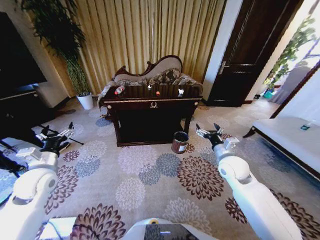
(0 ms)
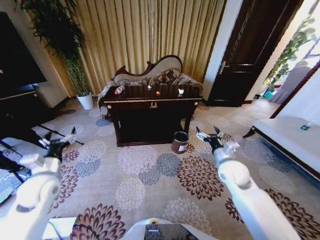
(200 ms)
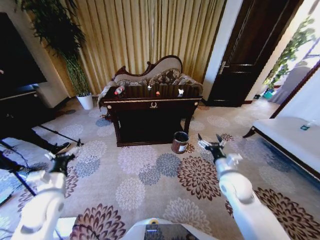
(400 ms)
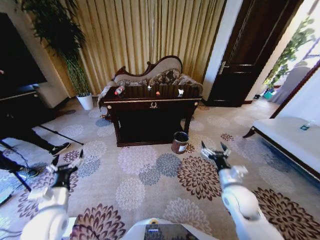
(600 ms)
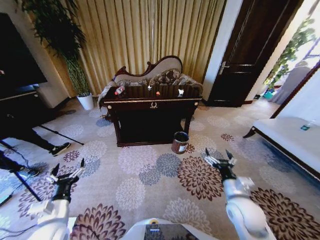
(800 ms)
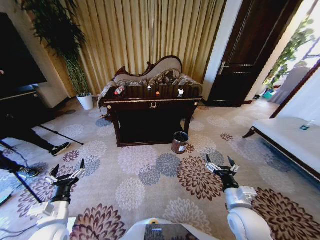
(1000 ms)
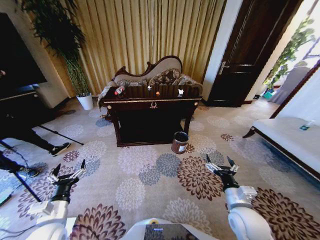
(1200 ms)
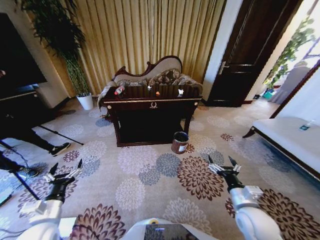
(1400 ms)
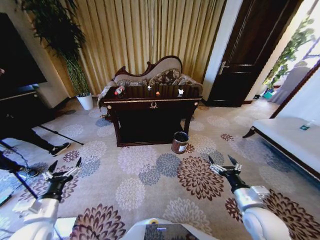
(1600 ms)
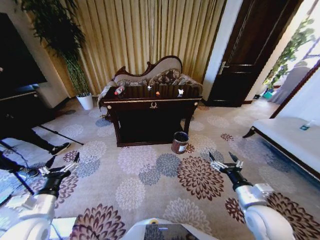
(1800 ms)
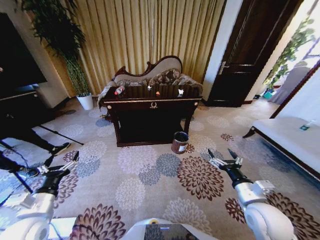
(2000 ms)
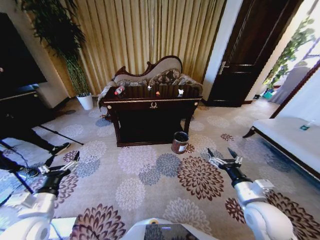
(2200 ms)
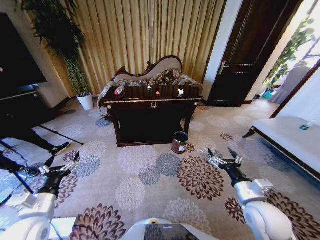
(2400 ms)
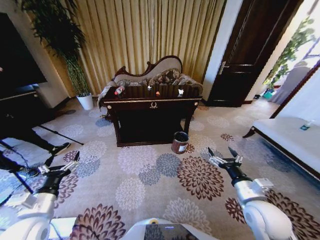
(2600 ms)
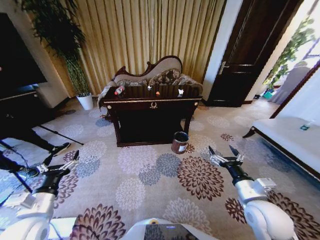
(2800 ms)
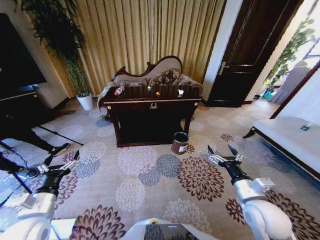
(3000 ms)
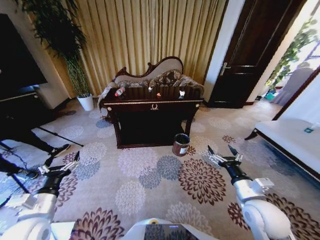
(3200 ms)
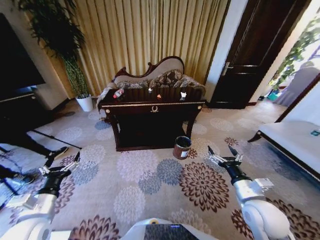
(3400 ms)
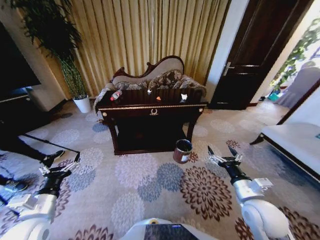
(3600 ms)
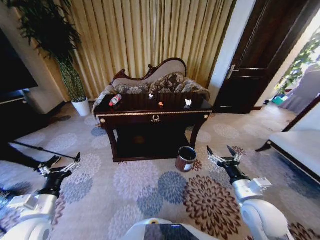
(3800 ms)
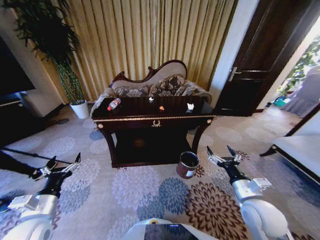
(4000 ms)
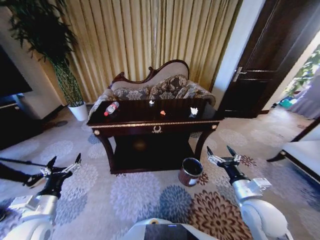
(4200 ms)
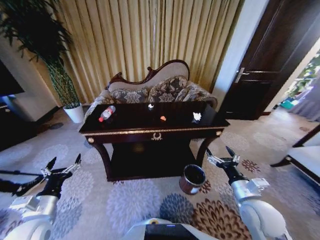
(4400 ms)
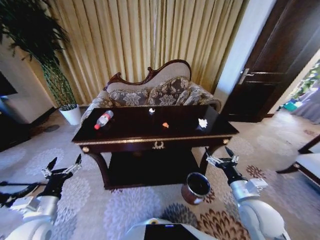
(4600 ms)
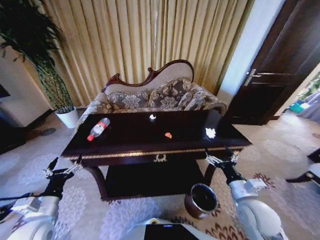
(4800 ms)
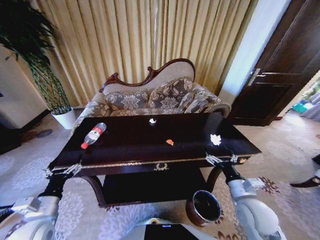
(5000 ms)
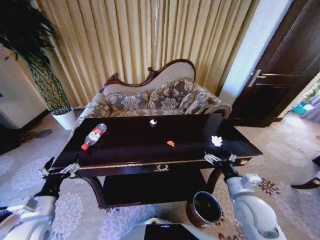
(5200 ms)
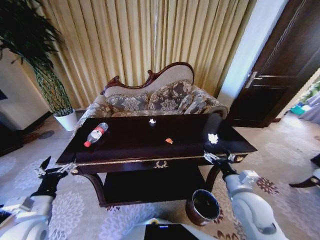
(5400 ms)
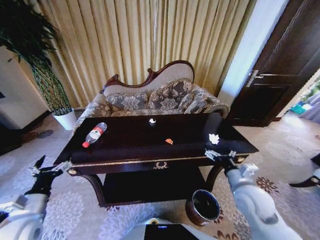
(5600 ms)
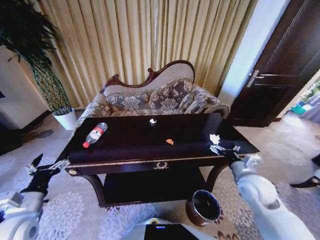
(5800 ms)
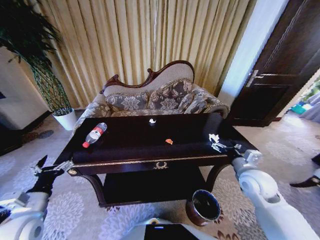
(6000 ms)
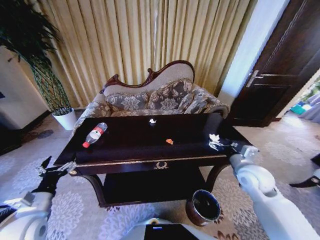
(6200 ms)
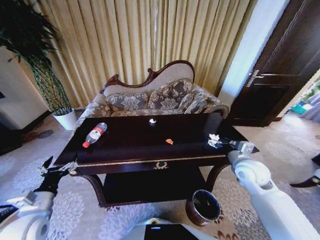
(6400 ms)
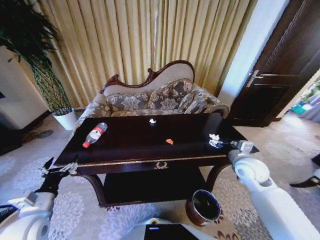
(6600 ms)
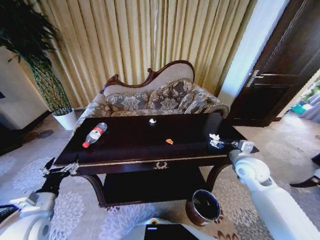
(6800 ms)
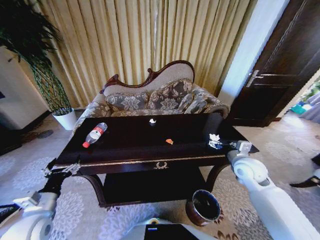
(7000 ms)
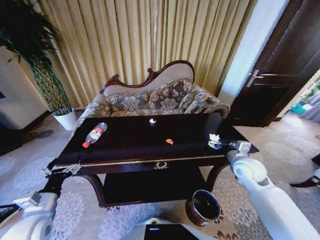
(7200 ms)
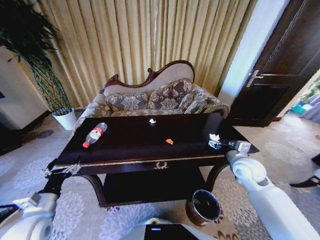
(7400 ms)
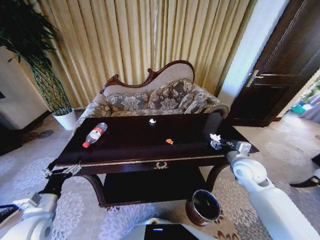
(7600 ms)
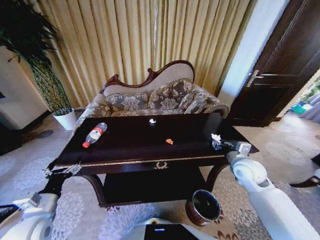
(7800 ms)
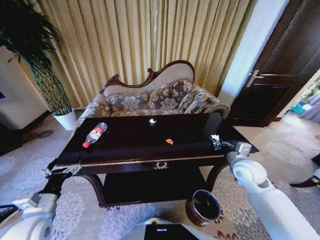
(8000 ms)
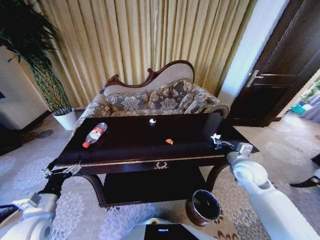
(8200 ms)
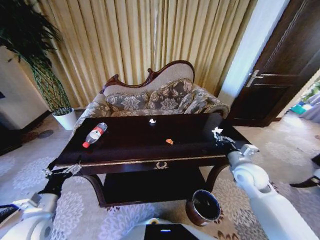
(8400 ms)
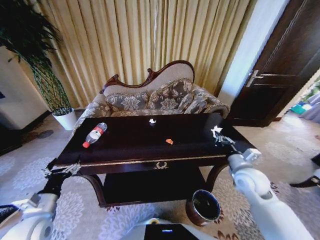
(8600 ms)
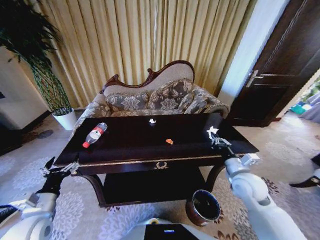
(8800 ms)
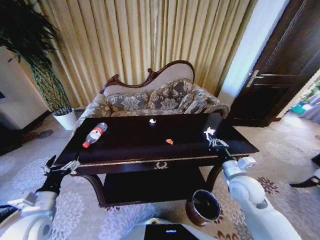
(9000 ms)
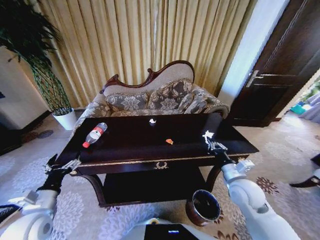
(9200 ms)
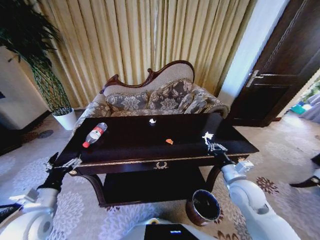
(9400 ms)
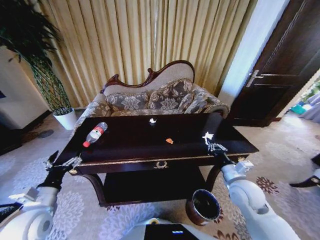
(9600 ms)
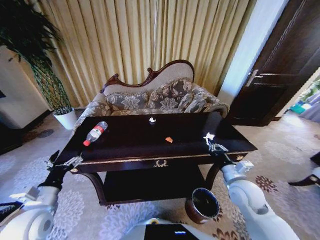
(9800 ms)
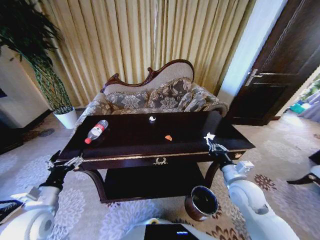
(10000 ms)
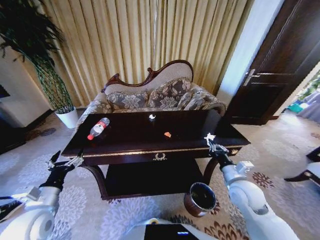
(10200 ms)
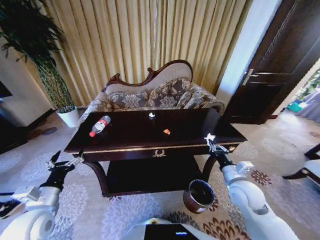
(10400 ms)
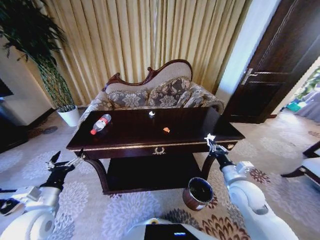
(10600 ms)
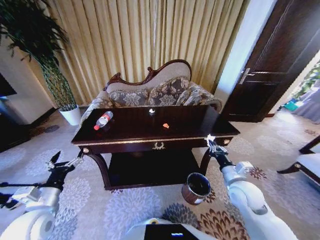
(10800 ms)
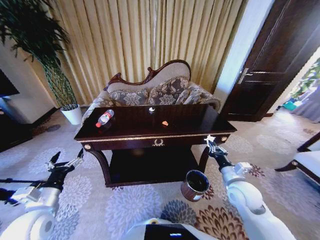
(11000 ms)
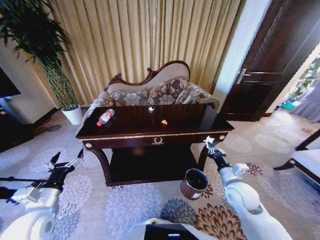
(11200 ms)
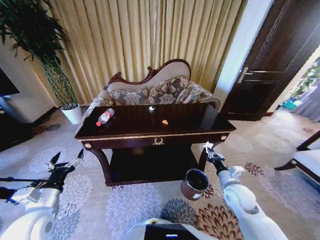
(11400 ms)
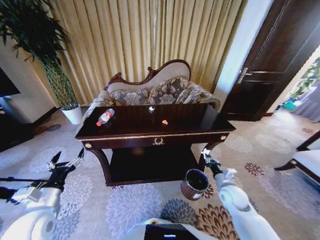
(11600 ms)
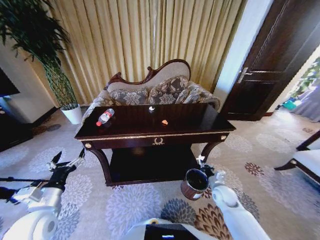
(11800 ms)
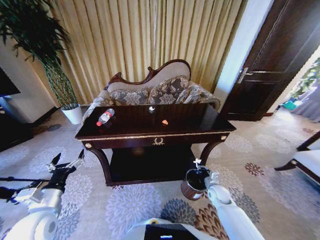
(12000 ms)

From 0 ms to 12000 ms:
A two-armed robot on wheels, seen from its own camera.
Task of the whole recording: Move to the front of the table and place the trash on the table into the trash bin.
From 1600 ms to 3000 ms: The grippers stay close to where they were, moving slightly.
From 4400 ms to 6000 ms: The right gripper is displaced forward by roughly 10 cm.
From 6000 ms to 7600 ms: The grippers make only small movements.
From 7600 ms to 9000 ms: The right gripper travels backward by about 5 cm, and closes up.
From 10400 ms to 12000 ms: The right gripper goes approximately 20 cm downward.

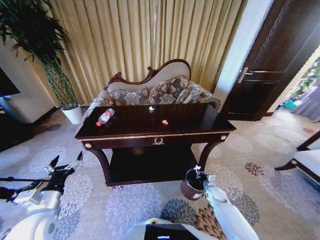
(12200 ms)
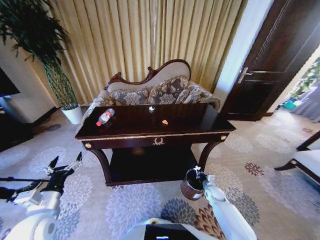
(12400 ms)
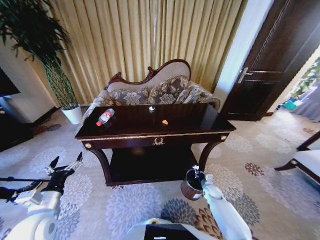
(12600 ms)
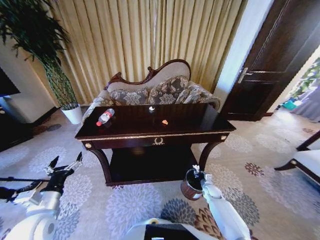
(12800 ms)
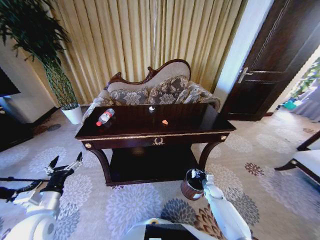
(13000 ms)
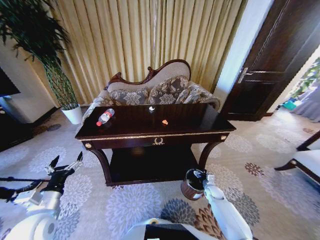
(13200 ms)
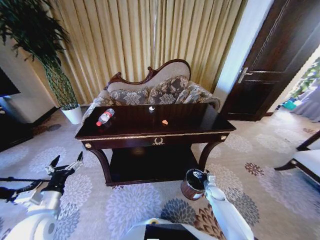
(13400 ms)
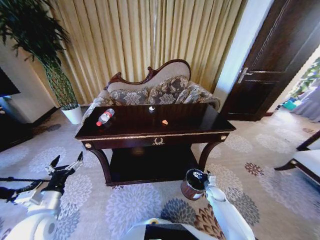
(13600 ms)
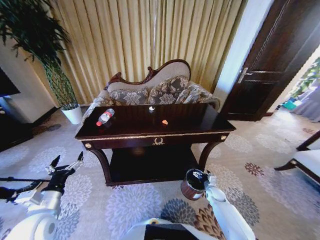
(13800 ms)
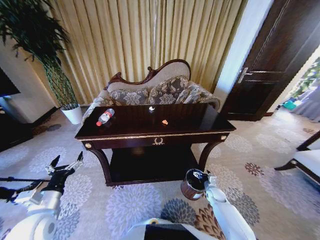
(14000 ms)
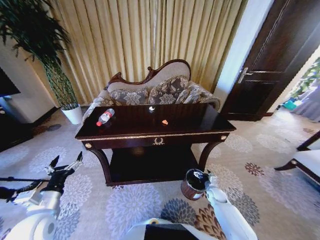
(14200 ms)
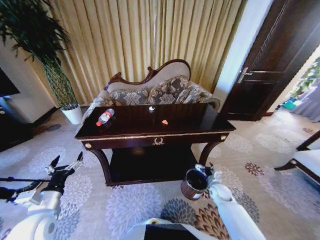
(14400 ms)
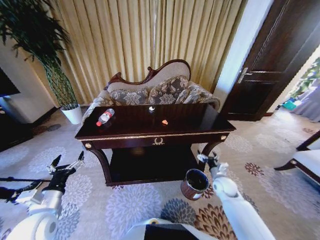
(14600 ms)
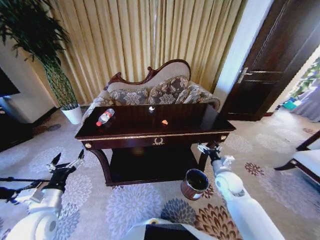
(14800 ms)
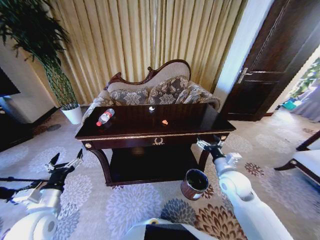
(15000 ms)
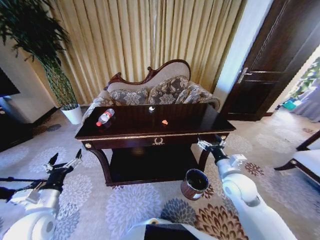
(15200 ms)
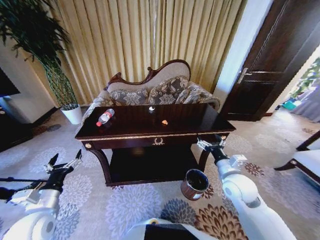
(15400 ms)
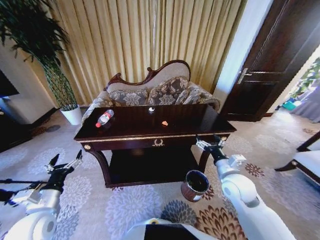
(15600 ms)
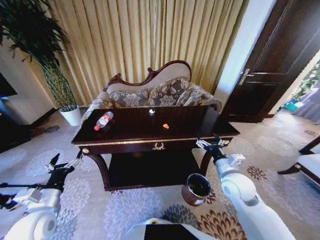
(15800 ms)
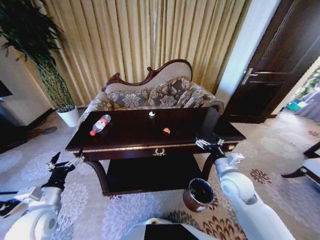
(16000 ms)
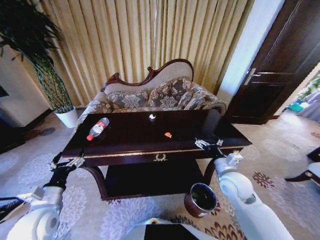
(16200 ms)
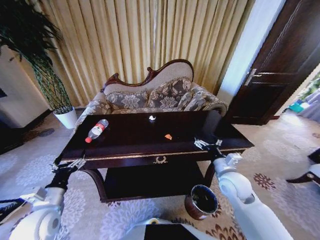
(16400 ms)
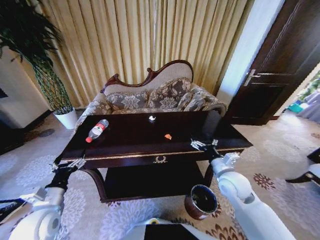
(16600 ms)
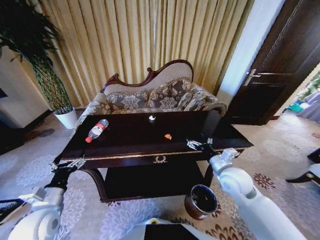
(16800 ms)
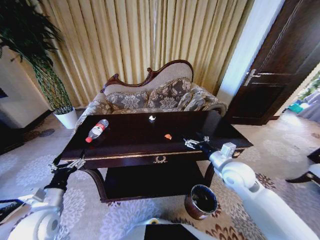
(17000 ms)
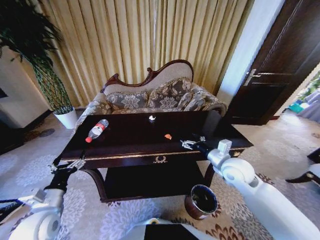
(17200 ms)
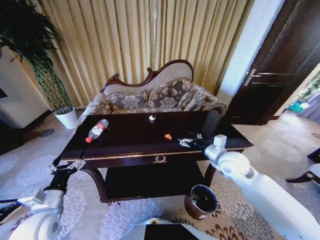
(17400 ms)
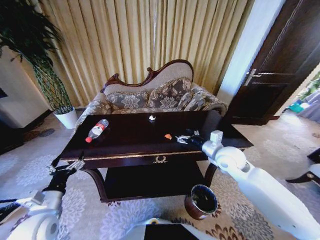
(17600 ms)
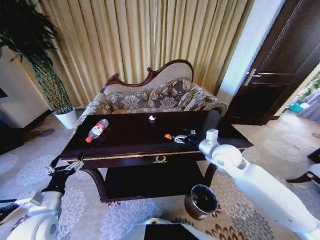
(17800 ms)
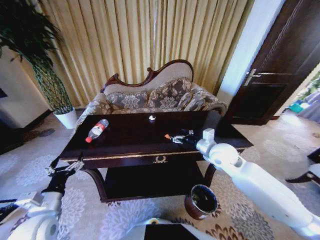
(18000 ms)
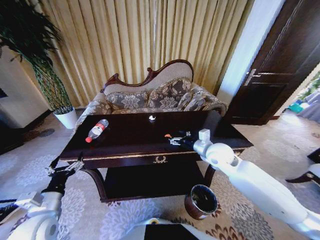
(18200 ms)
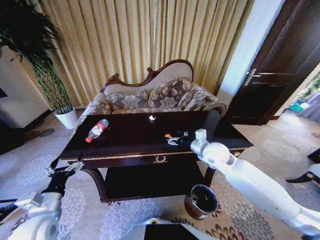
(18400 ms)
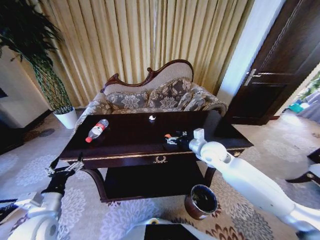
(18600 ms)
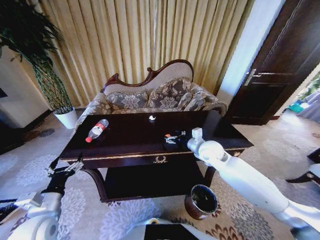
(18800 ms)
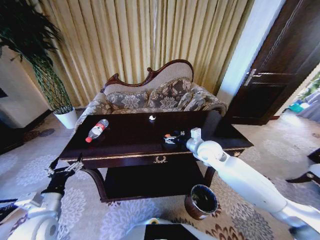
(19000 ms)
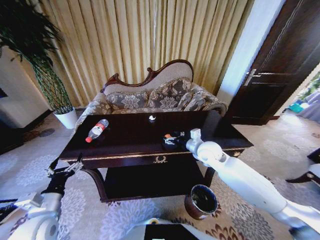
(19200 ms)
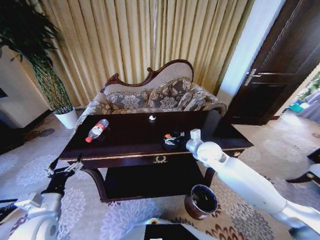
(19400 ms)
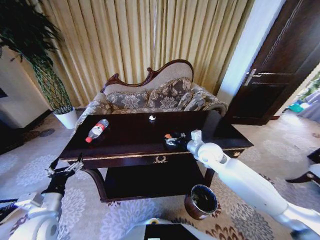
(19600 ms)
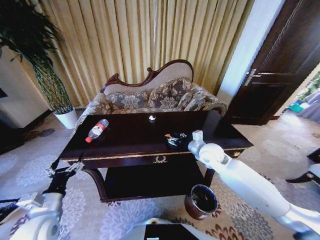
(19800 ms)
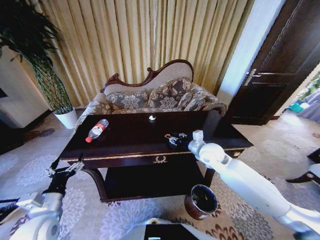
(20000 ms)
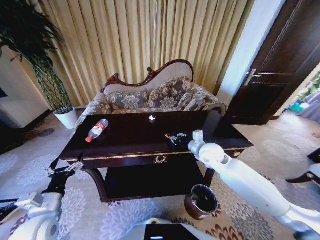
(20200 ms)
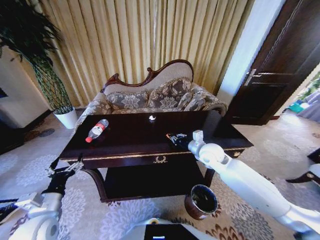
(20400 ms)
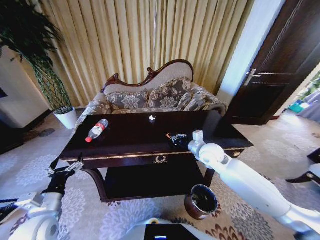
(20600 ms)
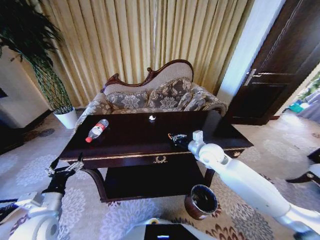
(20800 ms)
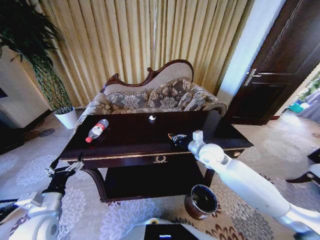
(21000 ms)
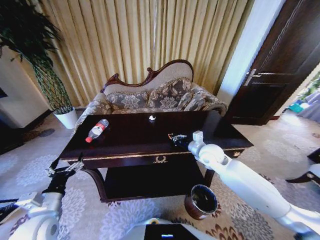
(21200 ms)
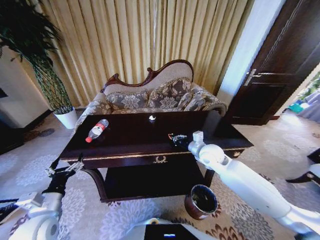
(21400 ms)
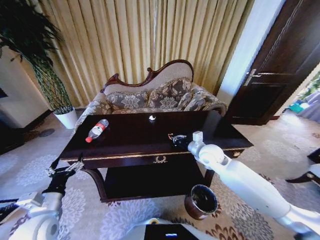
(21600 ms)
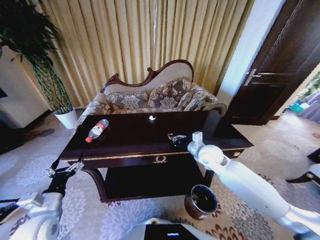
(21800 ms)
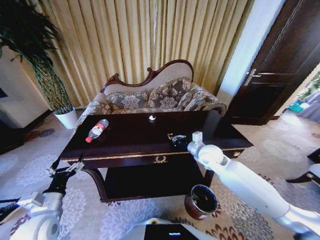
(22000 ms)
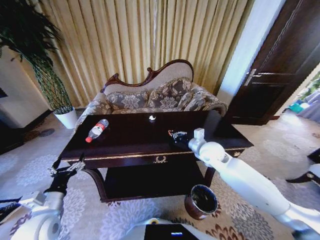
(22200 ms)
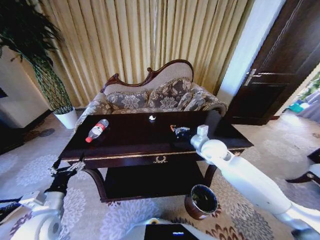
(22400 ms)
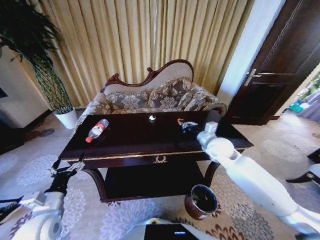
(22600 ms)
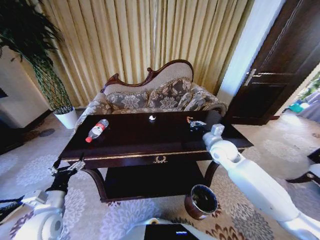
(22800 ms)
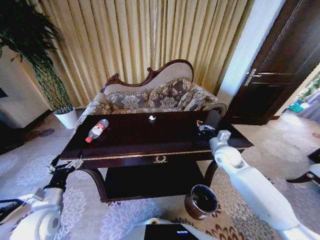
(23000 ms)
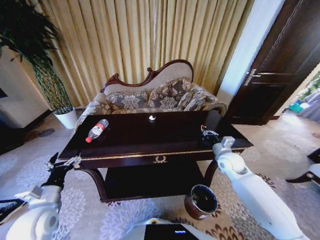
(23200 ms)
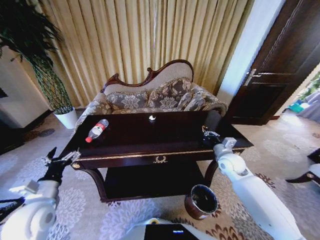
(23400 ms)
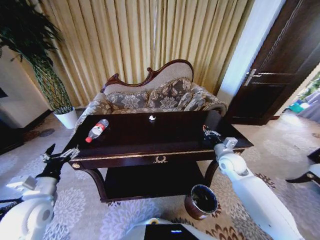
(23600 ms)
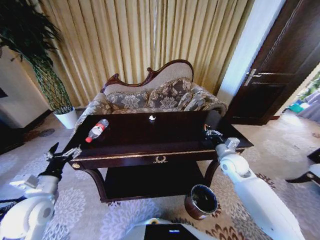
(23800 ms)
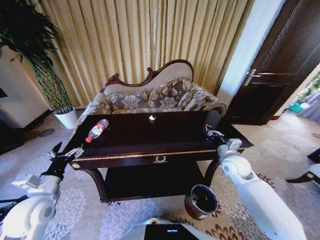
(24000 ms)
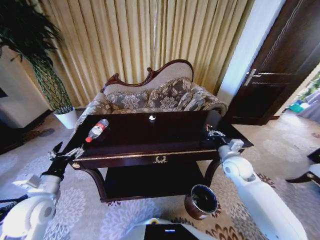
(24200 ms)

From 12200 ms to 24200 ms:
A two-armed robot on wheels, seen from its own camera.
Task of the whole recording: Move to the front of the table and place the trash on the table into the trash bin.
From 13800 ms to 15200 ms: The right gripper heads upward, covering roughly 30 cm.
From 16600 ms to 18200 ms: The right gripper travels forward and upward by some 10 cm.
From 18200 ms to 19800 ms: The grippers stay close to where they were, moving slightly.
From 19800 ms to 21200 ms: The right gripper closes its fingers.
From 21200 ms to 22600 ms: There are only small adjustments of the grippers.
From 22600 ms to 24200 ms: The right gripper shifts about 10 cm to the right, downward and backward, while the left gripper shifts by some 5 cm.
